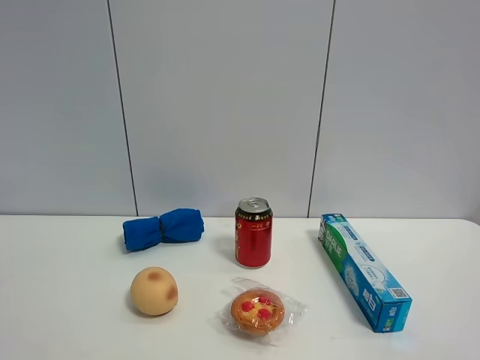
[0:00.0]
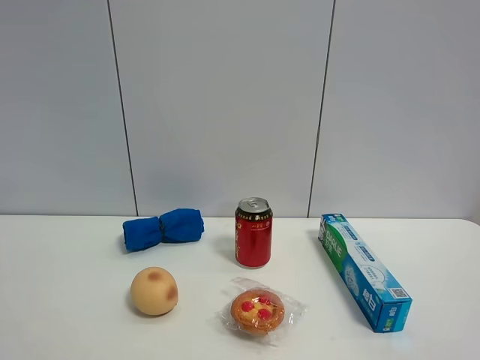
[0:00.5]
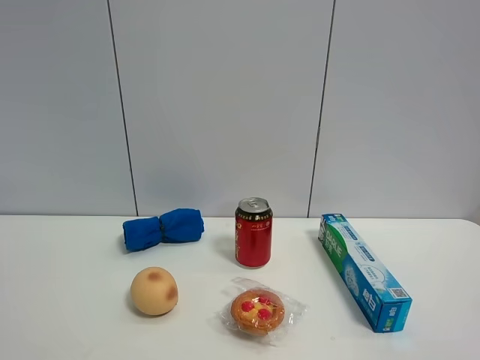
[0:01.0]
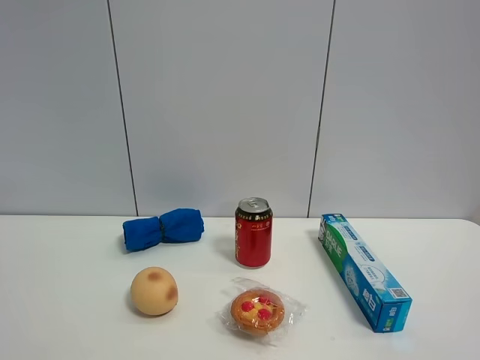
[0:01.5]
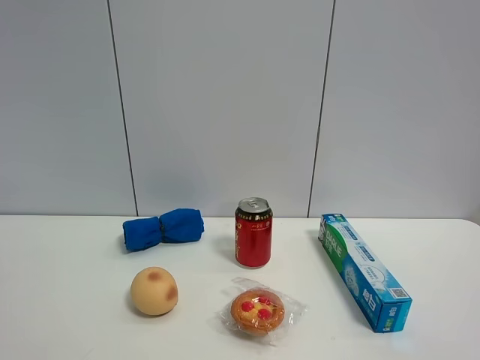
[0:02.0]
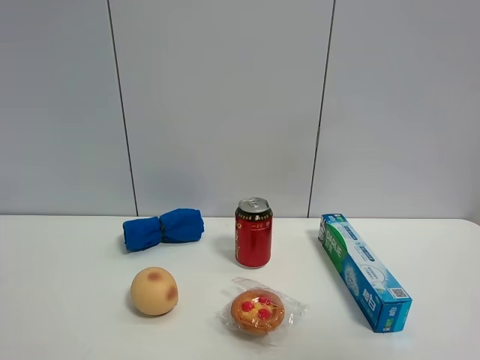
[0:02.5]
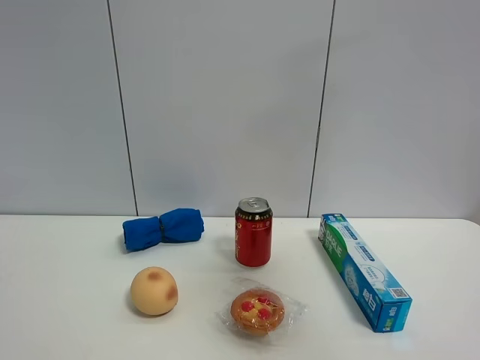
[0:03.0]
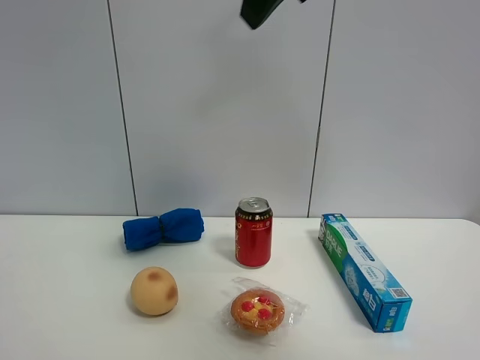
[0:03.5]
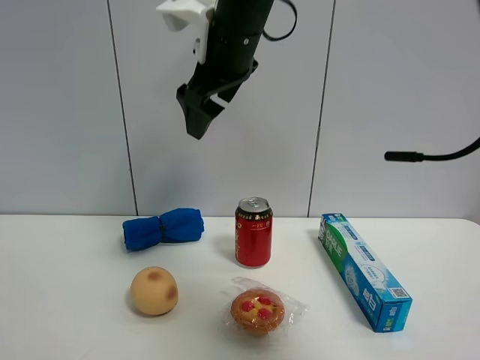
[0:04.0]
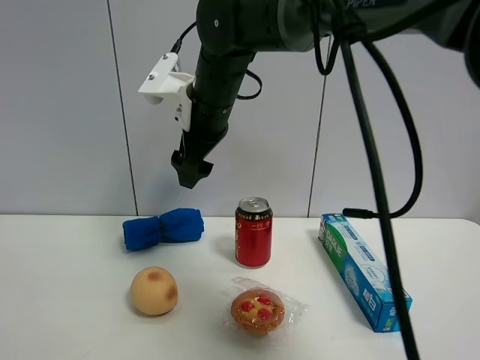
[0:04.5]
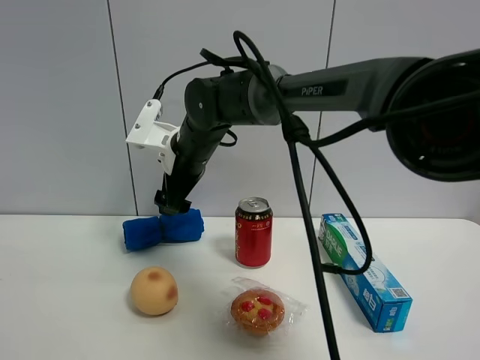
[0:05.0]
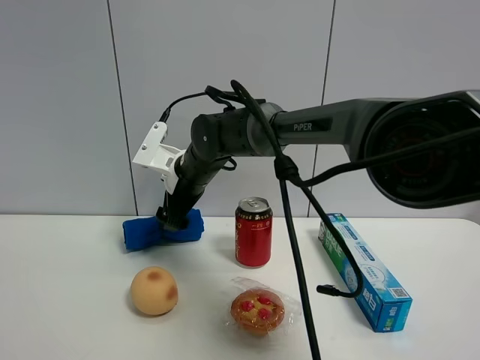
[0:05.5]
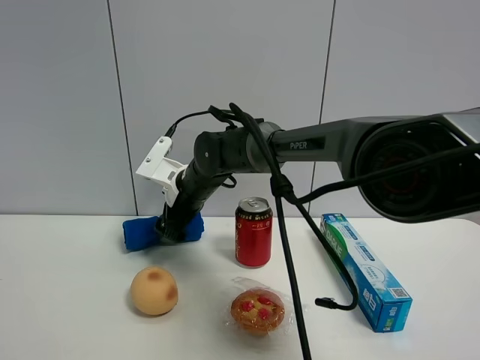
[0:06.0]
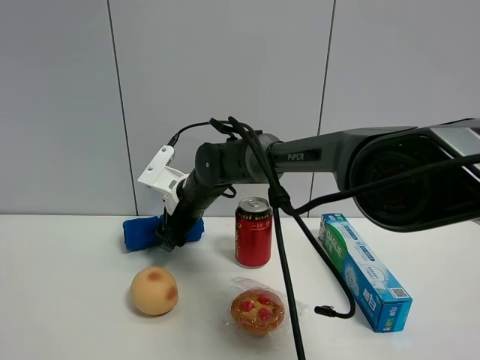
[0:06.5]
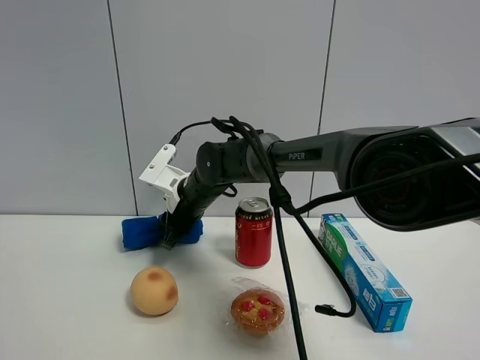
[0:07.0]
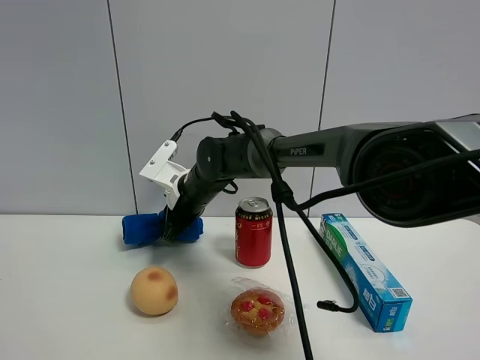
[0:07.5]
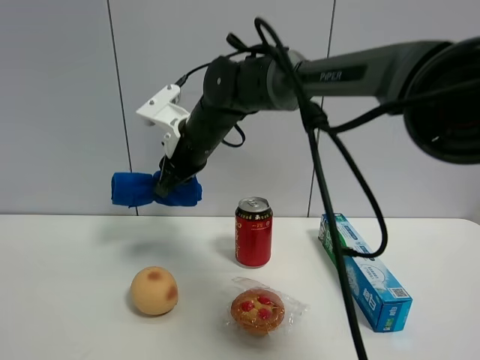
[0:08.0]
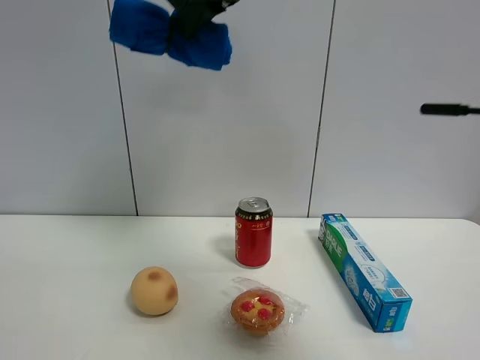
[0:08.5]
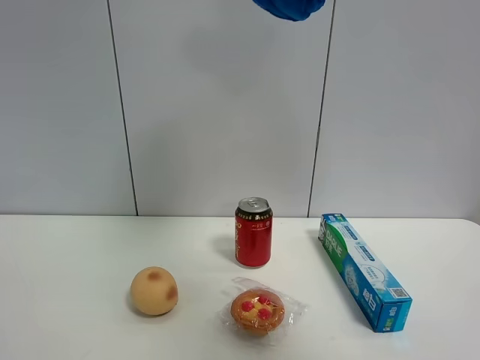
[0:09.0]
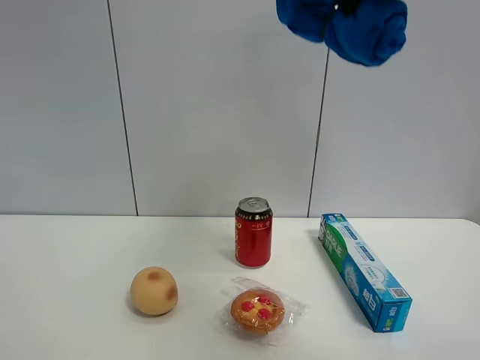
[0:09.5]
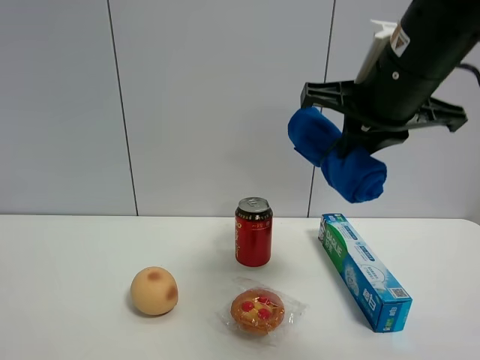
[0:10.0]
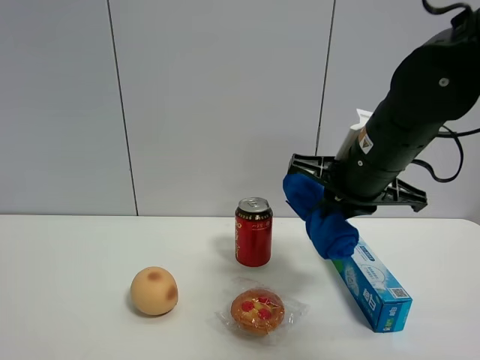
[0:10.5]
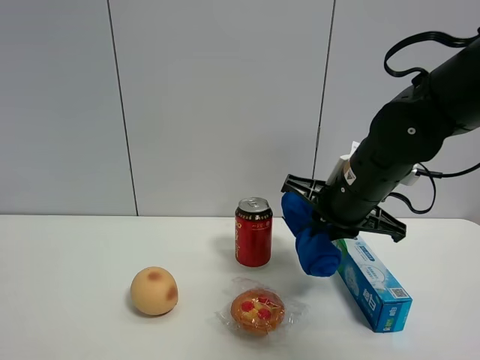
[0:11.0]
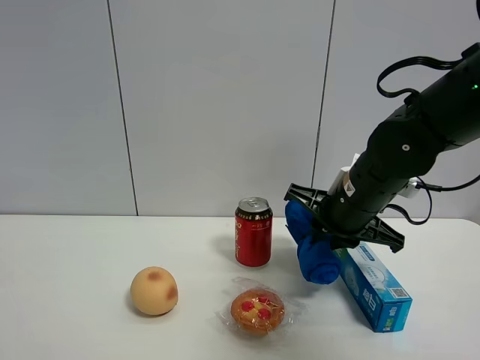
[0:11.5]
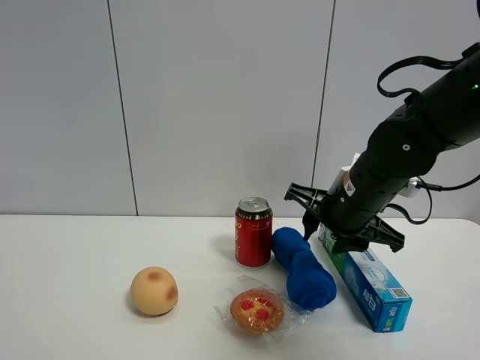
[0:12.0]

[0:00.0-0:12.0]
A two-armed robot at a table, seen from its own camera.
Task of the whole recording: the gripper move the object.
Step, 0:00.0 to 0:07.0: Grasp the blue towel with the right gripper.
Step, 0:07.5 to 0:11.5: Place the blue towel on the table with the right gripper.
0:00.0 to 0:02.0: The two grippers keep their place.
0:02.0 to 0:04.0: The right gripper goes some 50 cm forward and to the left.
0:04.0 to 0:06.0: The right gripper shifts about 20 cm downward.
0:06.0 to 0:08.0: The right gripper travels upward by some 10 cm, and closes its fingers.
0:08.0 to 0:10.0: The right gripper is displaced to the right and backward by about 25 cm, and goes upward and returns, some 25 cm each way.
0:10.0 to 0:12.0: The right gripper heads downward and forward, covering roughly 15 cm, and opens.

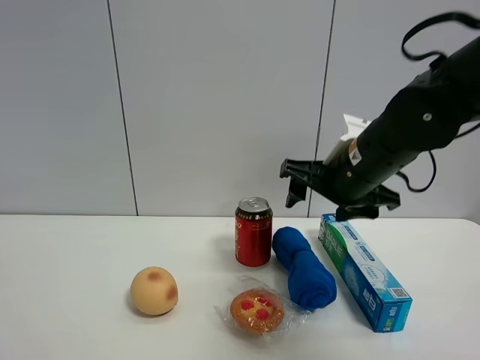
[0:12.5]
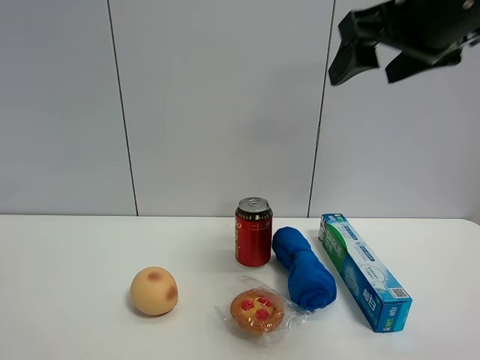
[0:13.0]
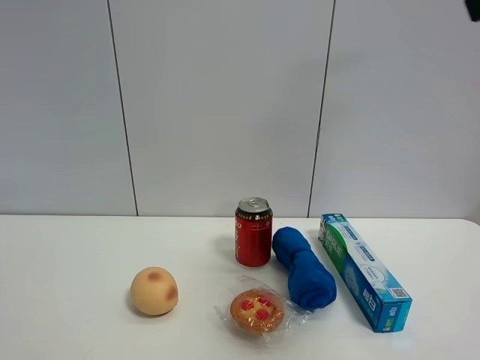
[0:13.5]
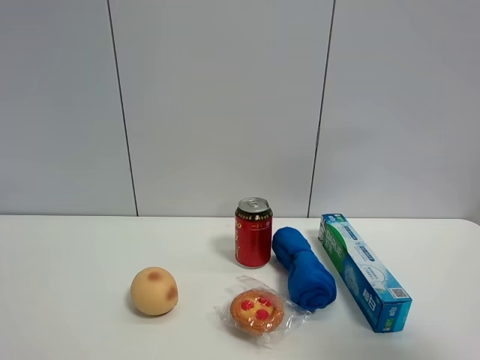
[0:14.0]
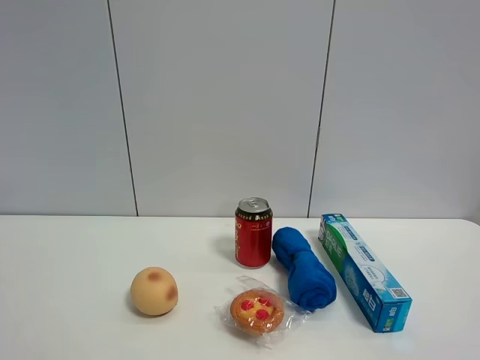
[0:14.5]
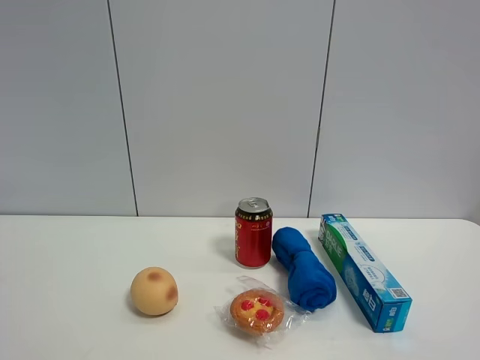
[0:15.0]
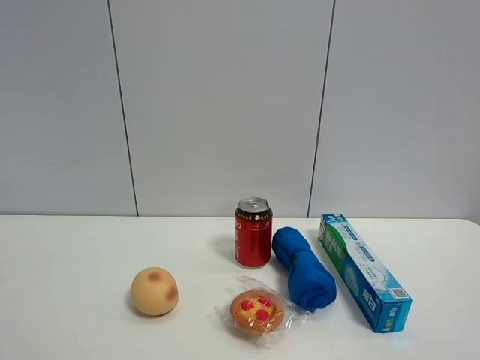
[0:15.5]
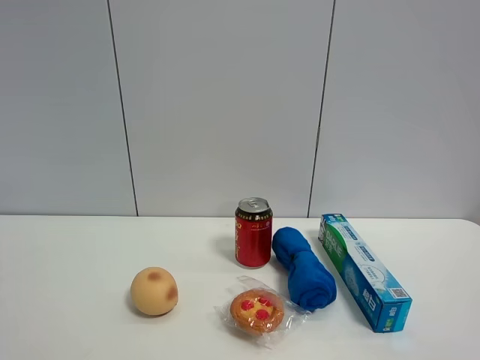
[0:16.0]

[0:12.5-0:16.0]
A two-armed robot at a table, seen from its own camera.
Task of the whole recording: the gripper move the object.
0:12.5 to 0:14.5: The right gripper goes roughly 35 cm backward and to the right.

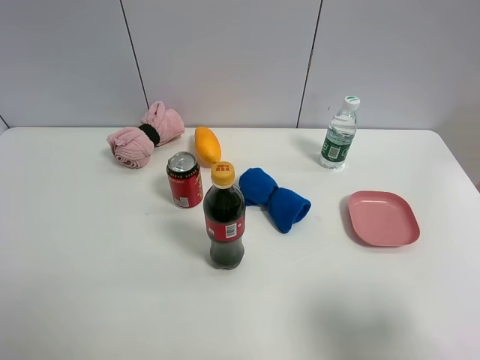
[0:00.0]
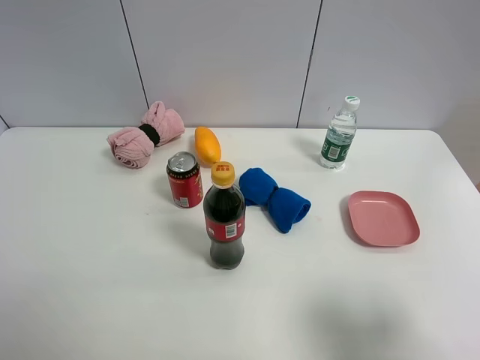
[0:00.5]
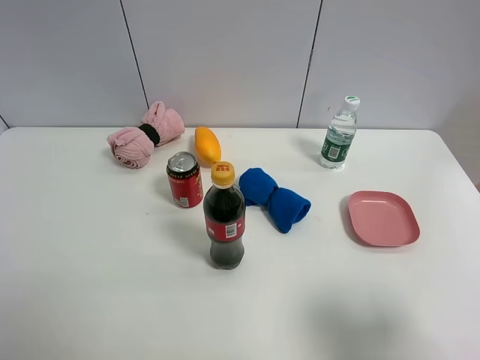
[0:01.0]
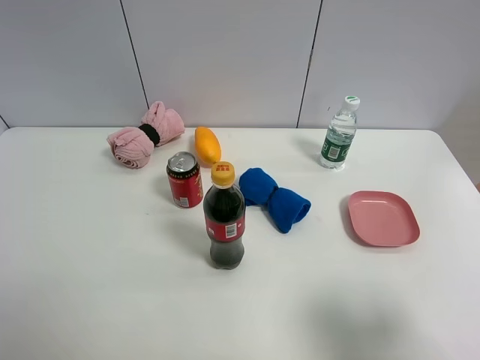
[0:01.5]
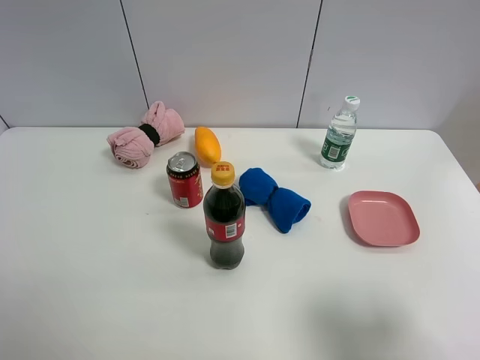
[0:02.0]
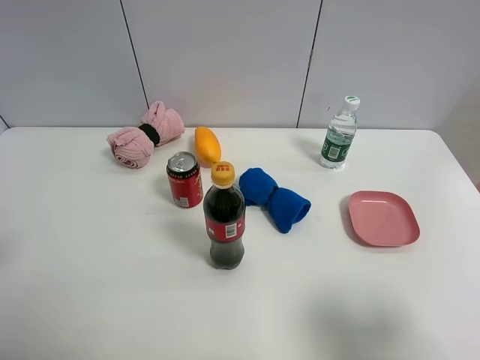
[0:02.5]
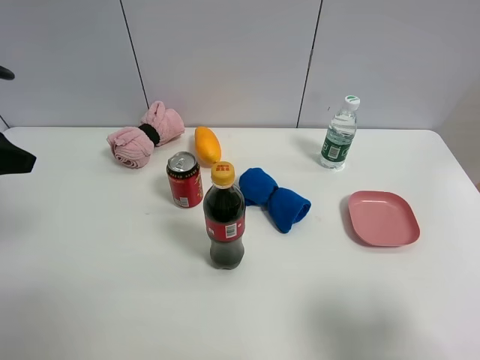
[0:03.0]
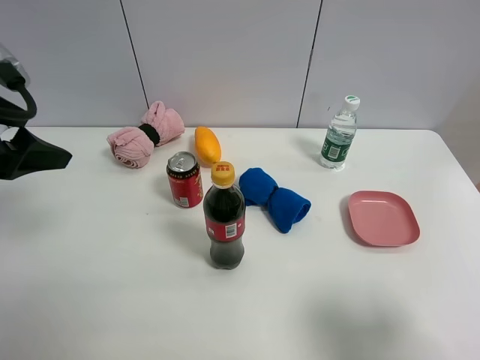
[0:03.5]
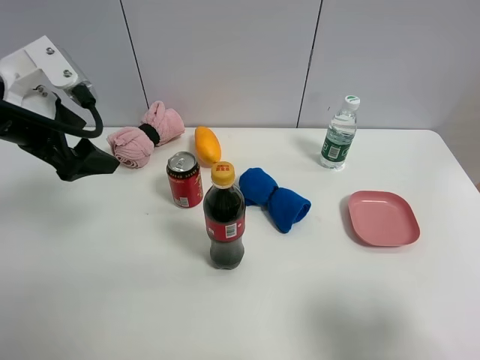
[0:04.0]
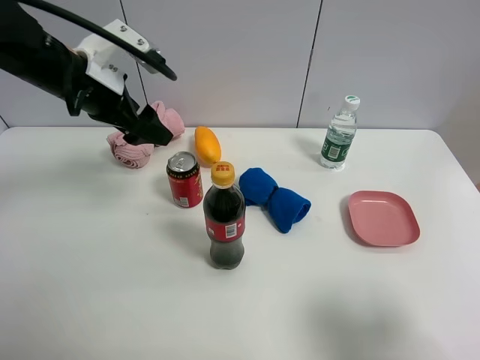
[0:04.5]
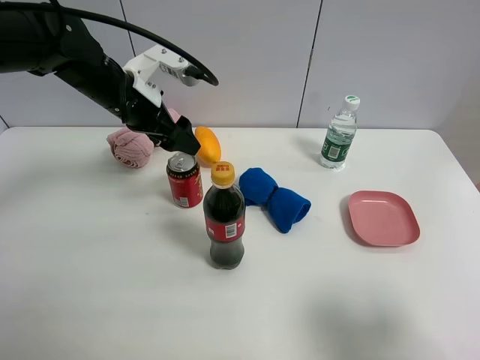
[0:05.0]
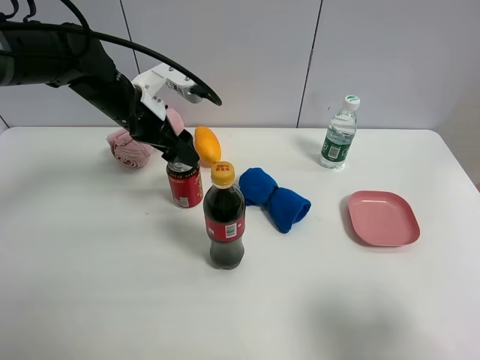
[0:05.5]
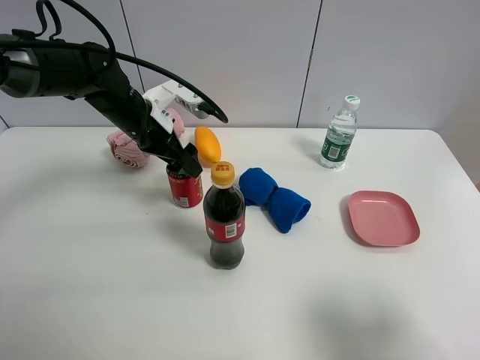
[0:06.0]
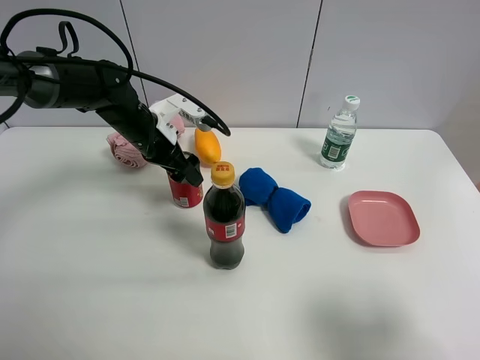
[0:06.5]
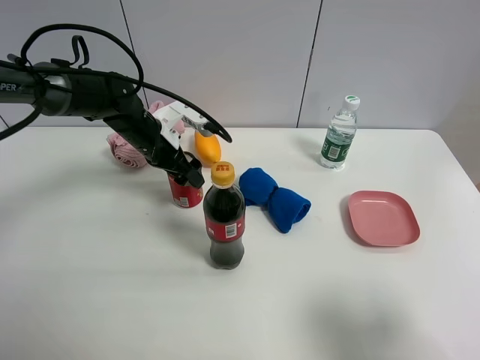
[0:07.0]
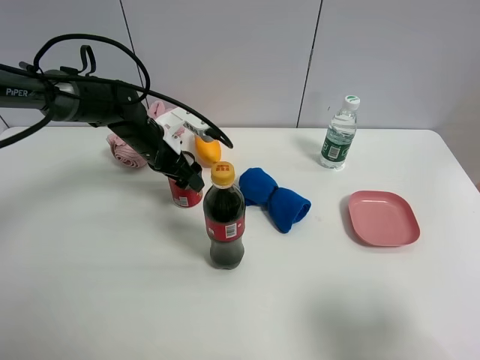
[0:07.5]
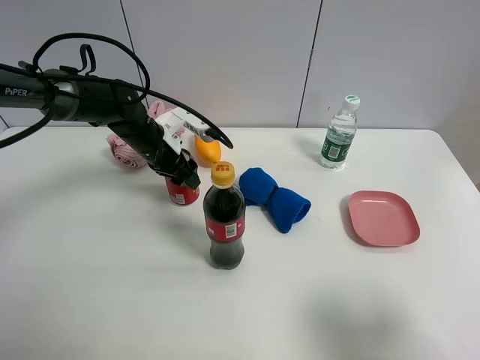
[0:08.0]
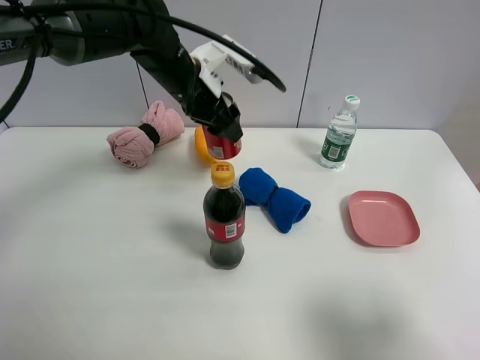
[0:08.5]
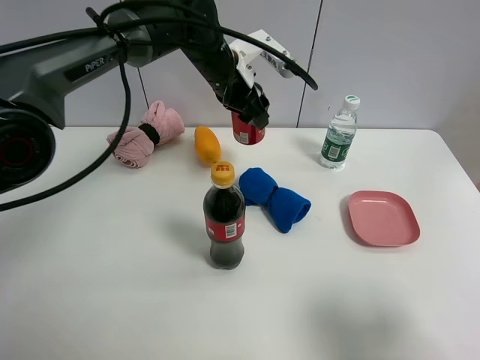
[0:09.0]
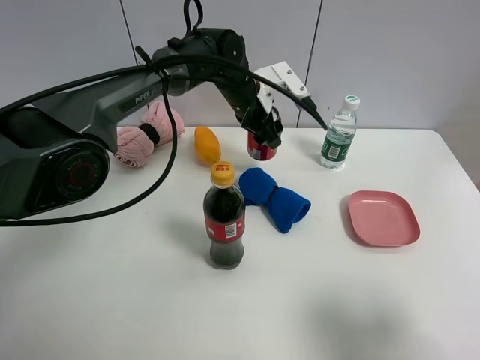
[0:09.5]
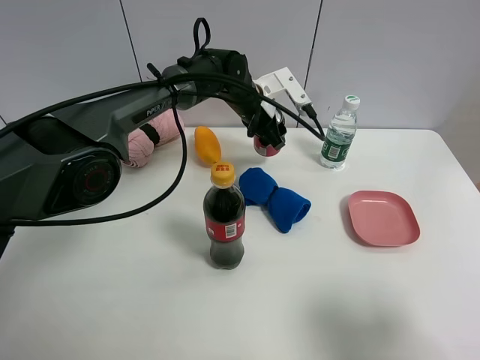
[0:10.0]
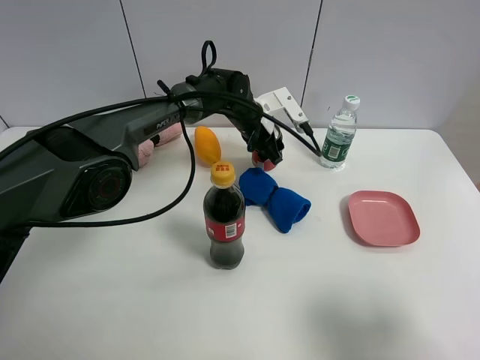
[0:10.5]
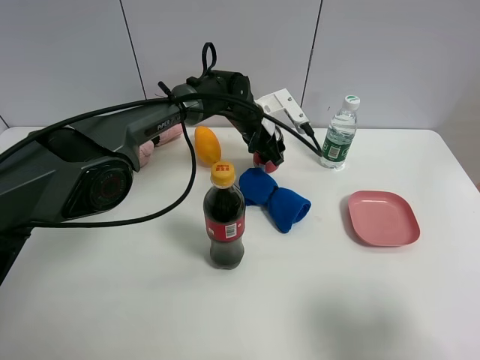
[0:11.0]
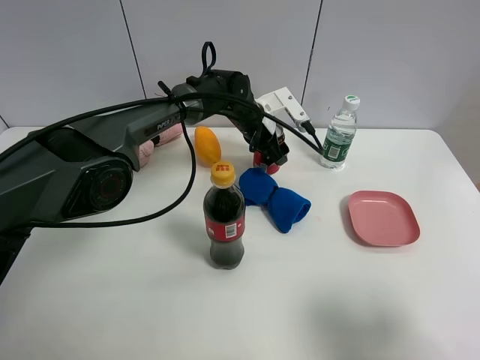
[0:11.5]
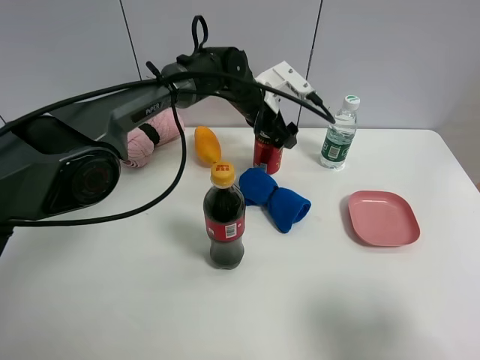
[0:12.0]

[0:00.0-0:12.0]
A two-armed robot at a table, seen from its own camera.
Task of the whole recording: the gripper move the object.
Step, 0:00.0 to 0:08.0: Grasp the Jia Duo Bao with the left gripper.
Step, 0:08.5 to 0:11.5: Place the Jia Duo Bao on the table with the left gripper.
0:02.0 to 0:04.0: The left gripper shifts roughly 25 cm forward.
0:04.0 to 0:06.0: The left gripper heads forward, downward and to the right, covering about 20 cm.
0:06.0 to 0:08.0: The left gripper heads downward, covering approximately 5 cm, and closes its fingers.
0:08.0 to 0:10.0: The left gripper heads to the right and forward, covering about 20 cm.
0:10.0 to 0:12.0: The left gripper opens its fingers.
